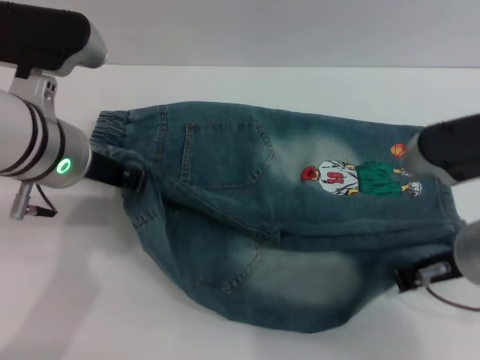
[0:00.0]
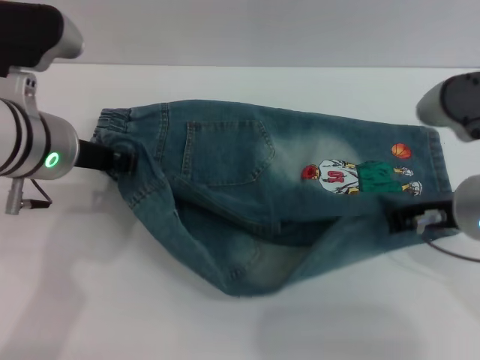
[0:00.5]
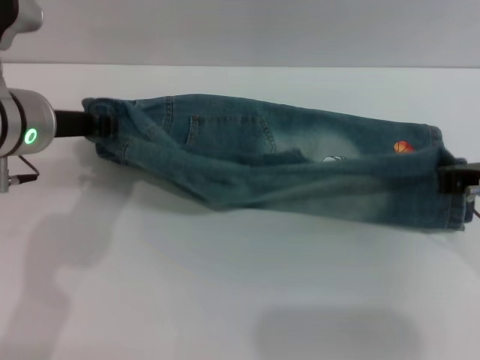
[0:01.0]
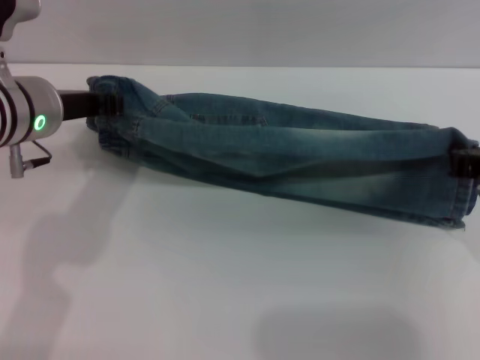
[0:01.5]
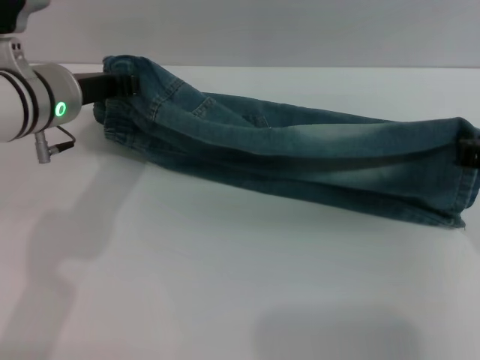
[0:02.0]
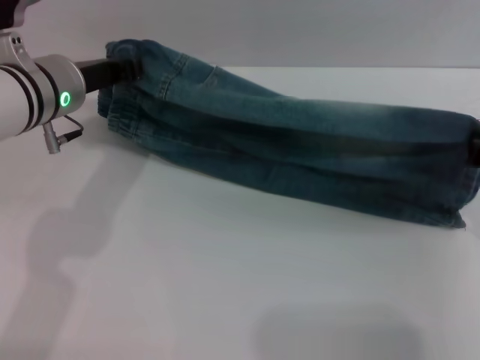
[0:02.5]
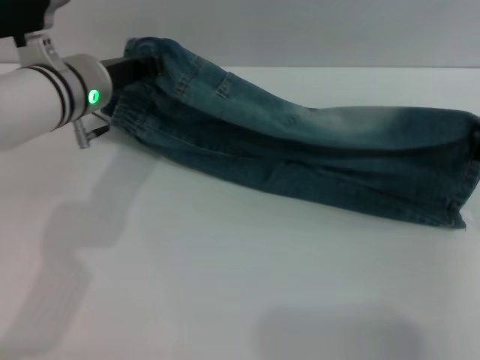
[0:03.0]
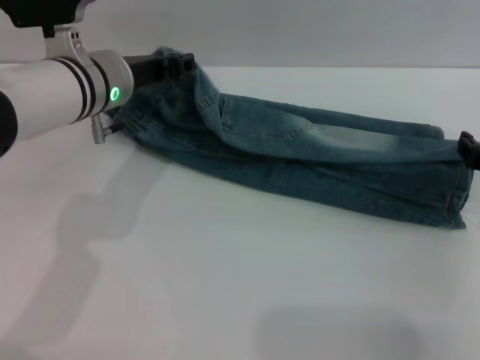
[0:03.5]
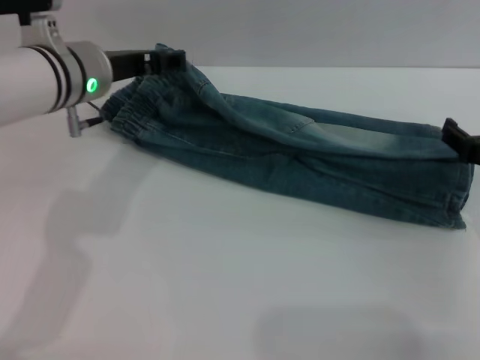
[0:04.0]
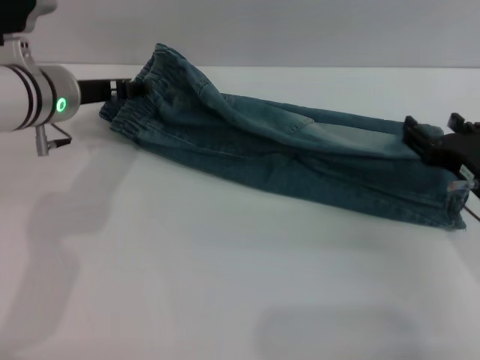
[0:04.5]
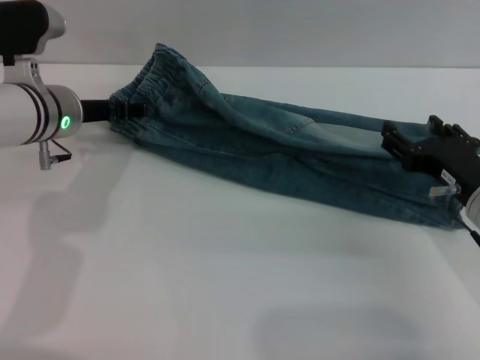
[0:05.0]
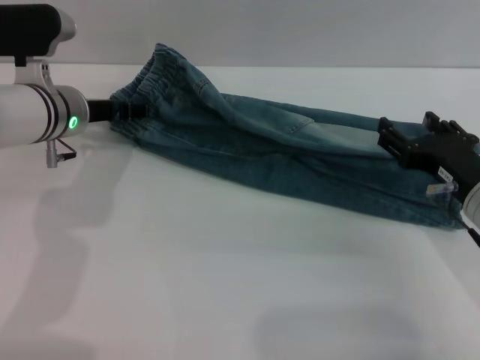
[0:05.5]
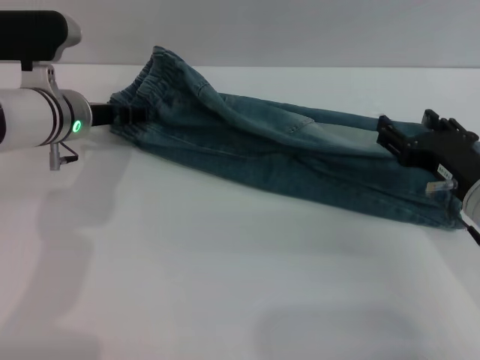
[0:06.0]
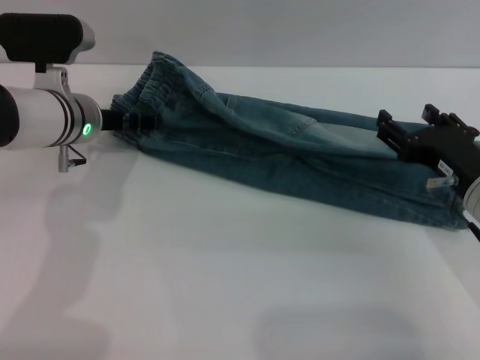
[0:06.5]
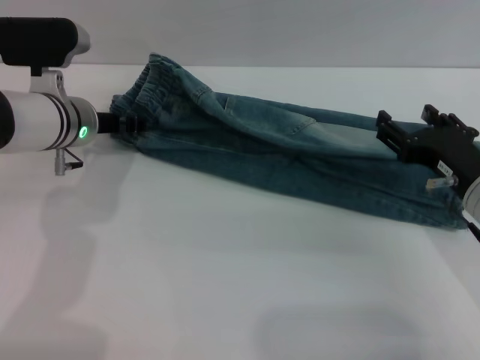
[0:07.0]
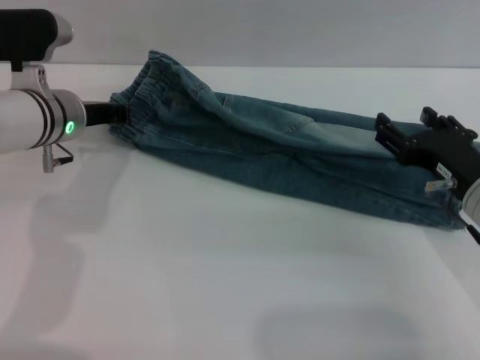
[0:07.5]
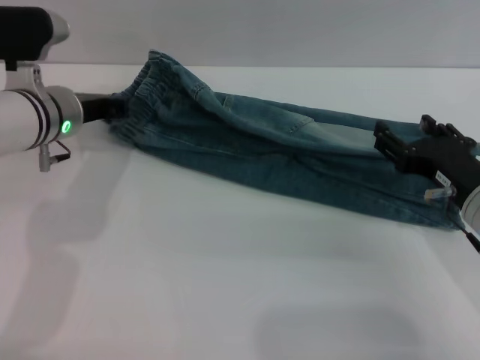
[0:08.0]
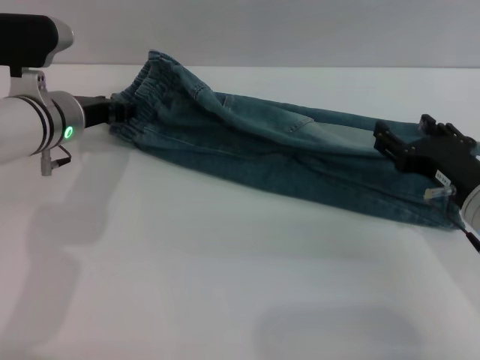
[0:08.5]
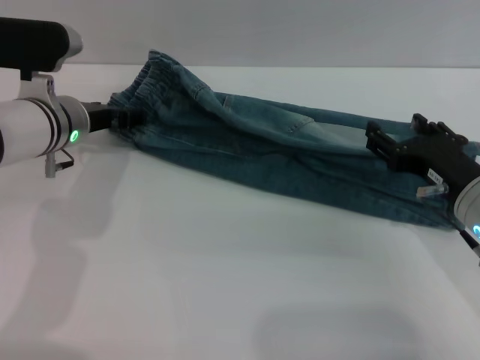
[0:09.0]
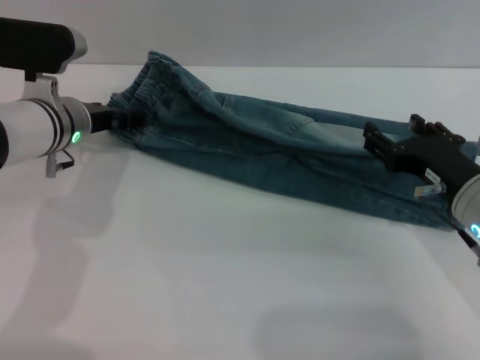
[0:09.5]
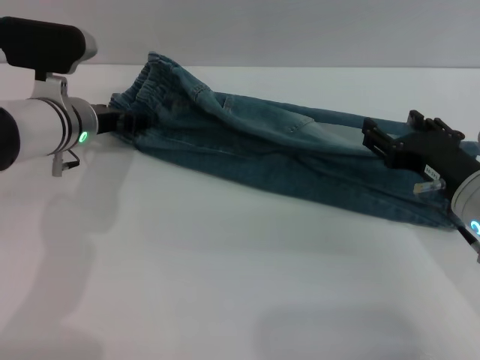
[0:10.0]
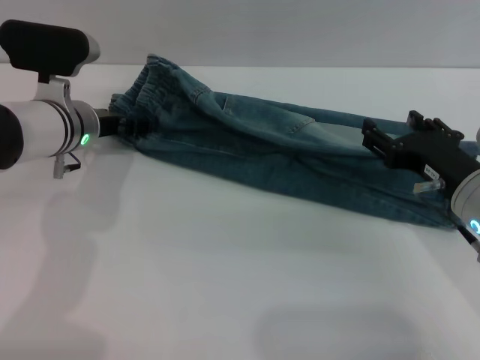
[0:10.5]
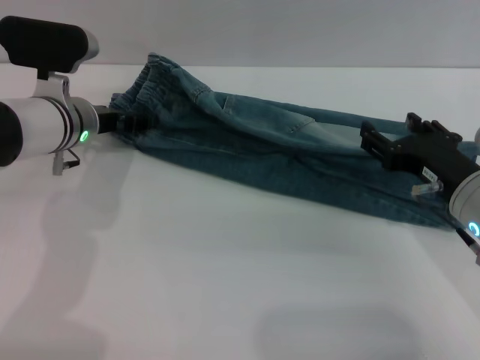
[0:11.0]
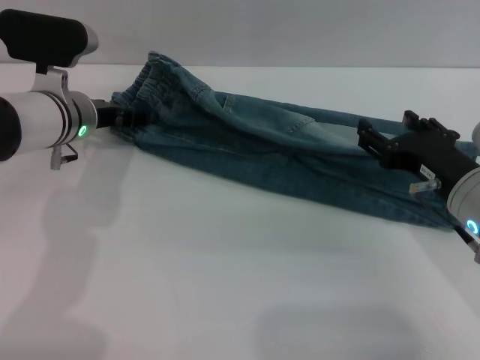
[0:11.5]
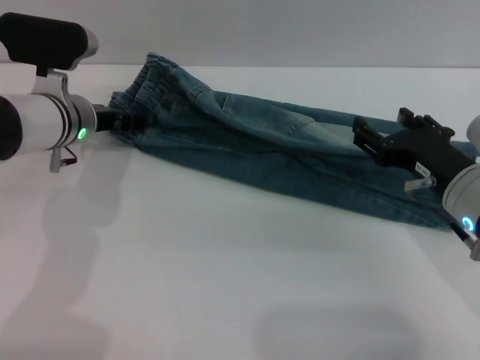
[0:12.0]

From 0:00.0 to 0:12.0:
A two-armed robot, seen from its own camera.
From 0:00.0 to 0:02.0: The right gripper heads to the right, covering some 10 cm. Meanwhile the left gripper shifts by approximately 5 cm.
From 0:02.0 to 0:04.0: The right gripper moves approximately 5 cm, and opens, while the left gripper opens its fingers.
From 0:04.0 to 0:06.0: The left gripper heads downward, covering about 5 cm; the right gripper moves to the left, about 5 cm.
From 0:06.0 to 0:08.0: The left gripper closes its fingers.
From 0:08.0 to 0:10.0: The left gripper opens up.
From 0:10.0 to 0:12.0: Both grippers stay put.

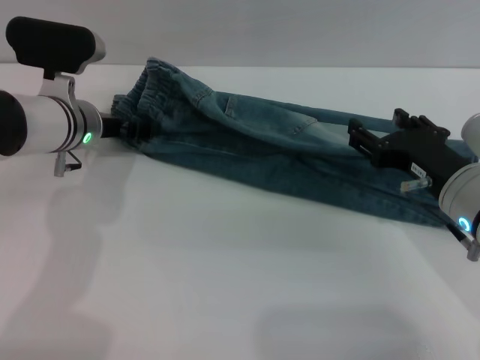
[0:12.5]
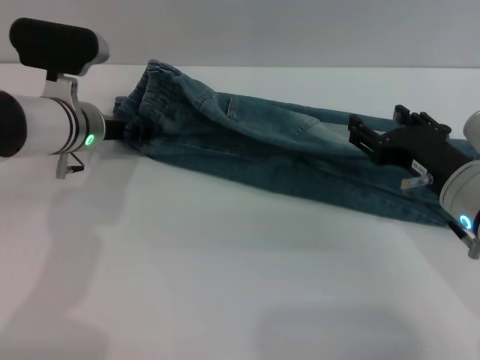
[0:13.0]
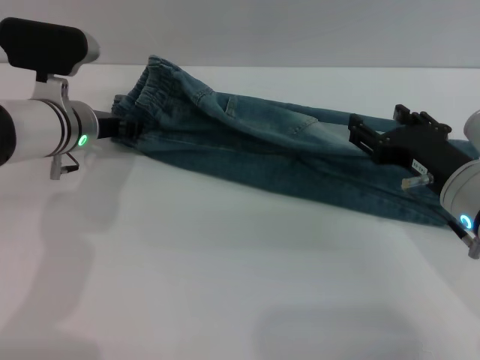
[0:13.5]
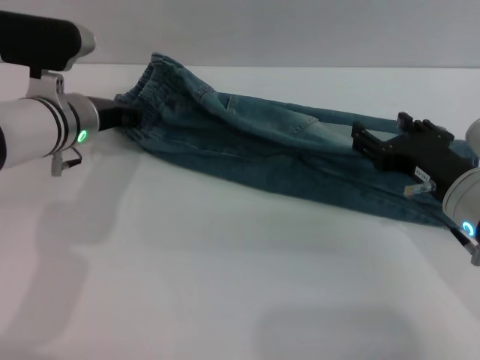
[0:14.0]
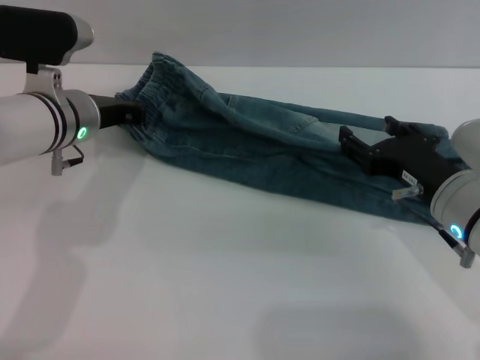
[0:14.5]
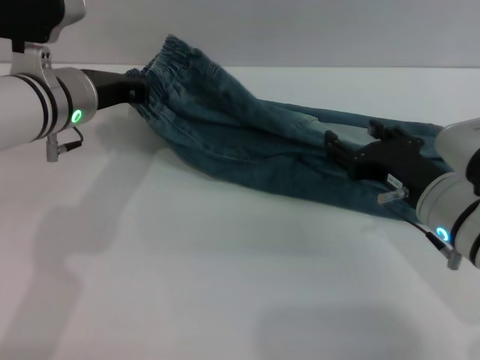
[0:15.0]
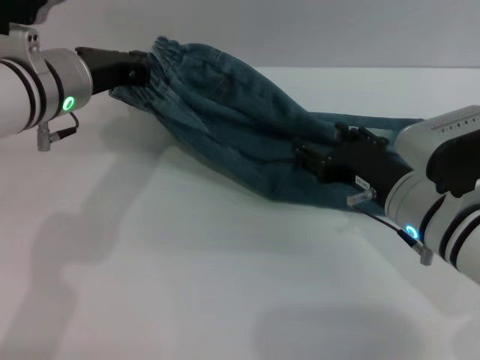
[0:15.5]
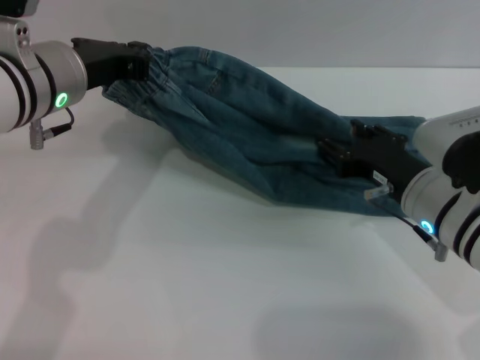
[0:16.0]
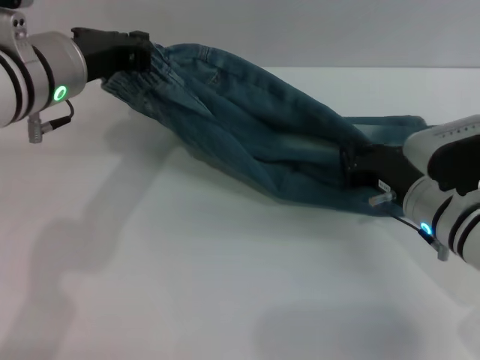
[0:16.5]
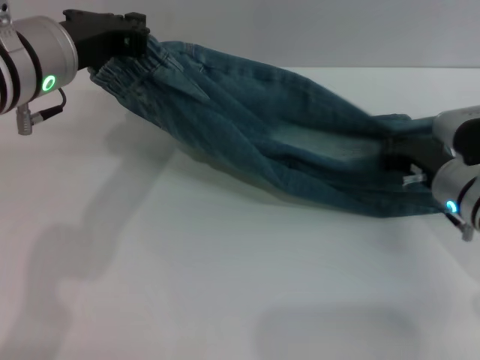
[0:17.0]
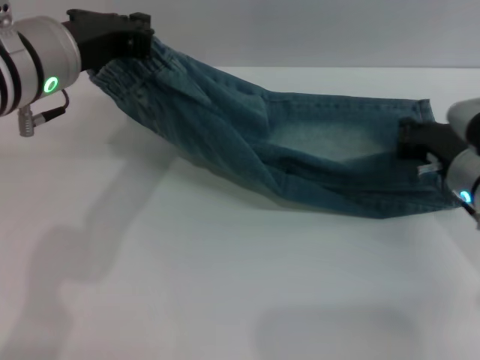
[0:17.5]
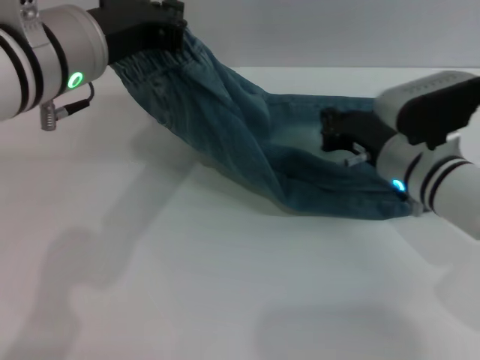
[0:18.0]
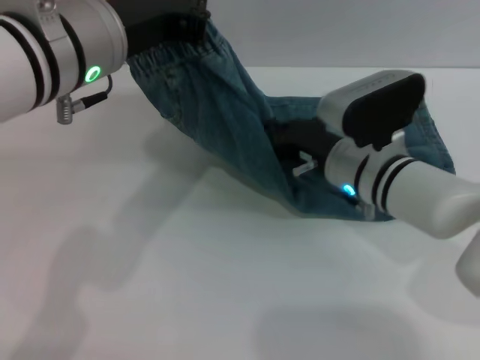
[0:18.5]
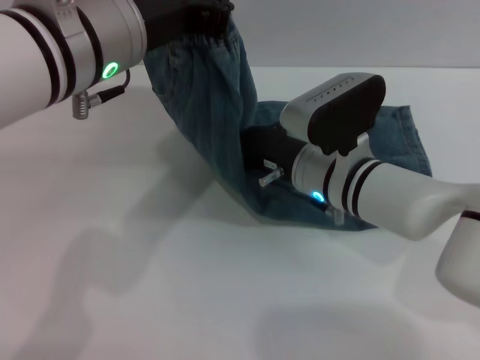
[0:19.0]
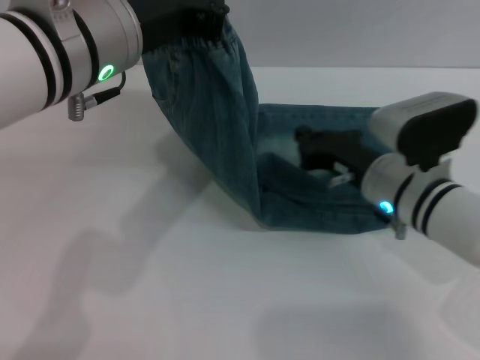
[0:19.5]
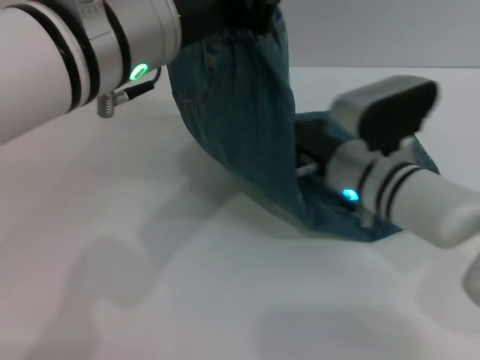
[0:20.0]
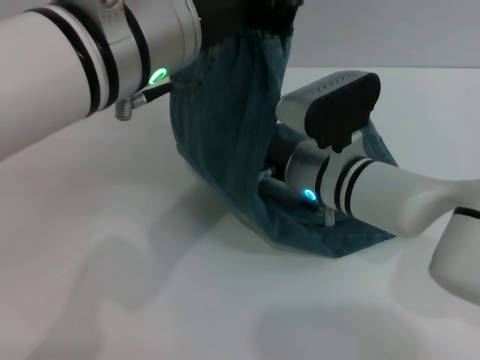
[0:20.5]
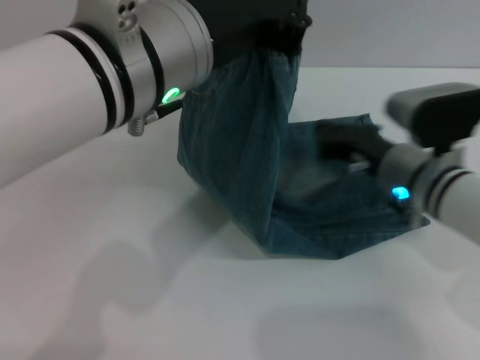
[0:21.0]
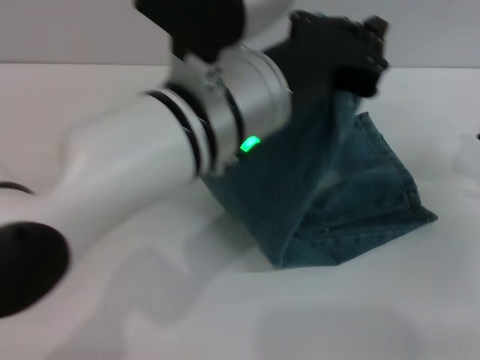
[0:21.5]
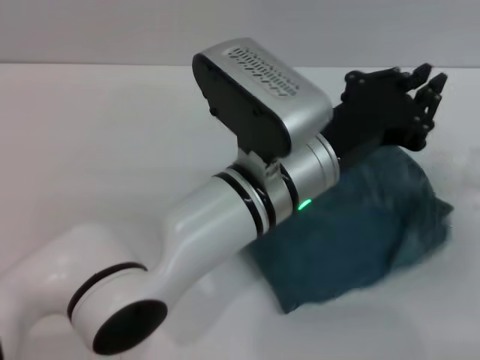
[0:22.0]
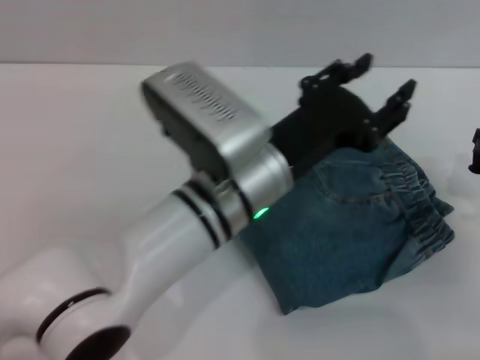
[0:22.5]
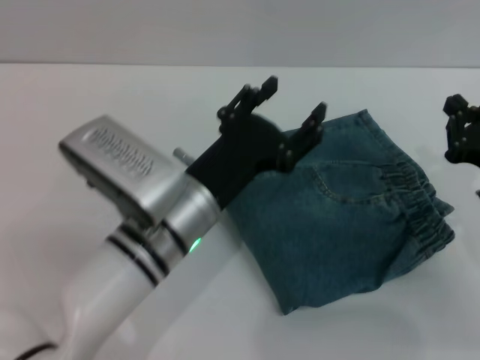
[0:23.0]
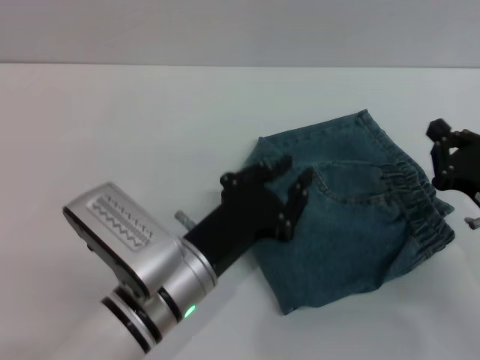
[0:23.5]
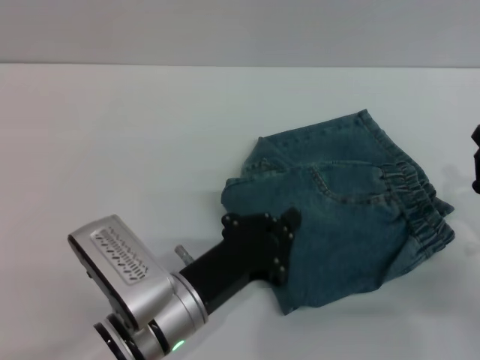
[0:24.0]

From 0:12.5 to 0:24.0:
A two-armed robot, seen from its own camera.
Step, from 0:13.0 to 0:22.5: Fold the pants from left to right with the left gripper.
From 0:12.5 to 0:14.5: The left gripper closes.
From 0:14.5 to 0:16.5: The right gripper ends up about 5 cm from where it was, and closes up, while the left gripper shifts some 10 cm upward.
From 0:16.5 to 0:18.5: The left gripper moves some 5 cm. The right gripper is displaced to the left by about 5 cm, and closes up.
From 0:18.5 to 0:20.0: The left gripper shifts by about 5 cm.
From 0:20.0 to 0:22.0: The left gripper travels downward and to the right by roughly 15 cm, while the right gripper goes some 20 cm to the right.
From 0:22.0 to 0:24.0: The right gripper heads backward, covering some 5 cm. The left gripper shifts roughly 15 cm downward, to the left and backward, and opens, then closes again.
